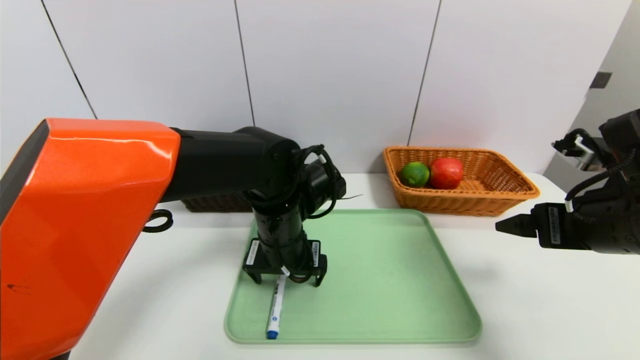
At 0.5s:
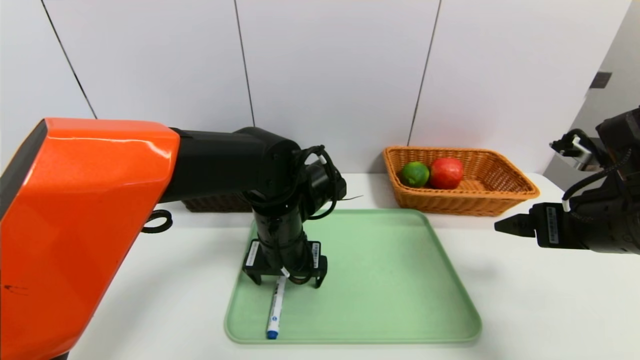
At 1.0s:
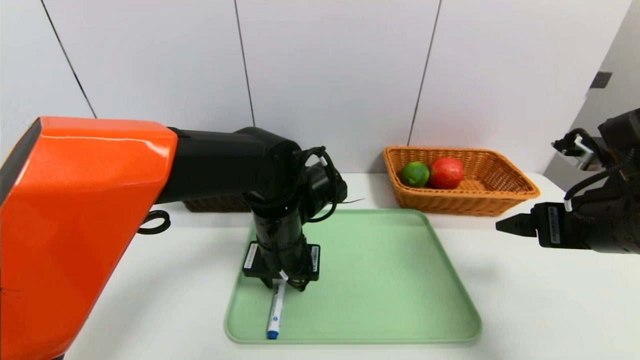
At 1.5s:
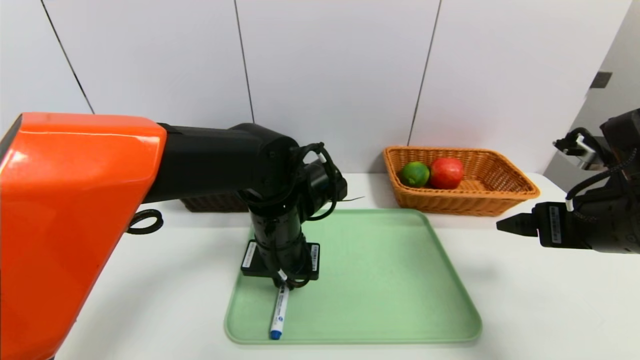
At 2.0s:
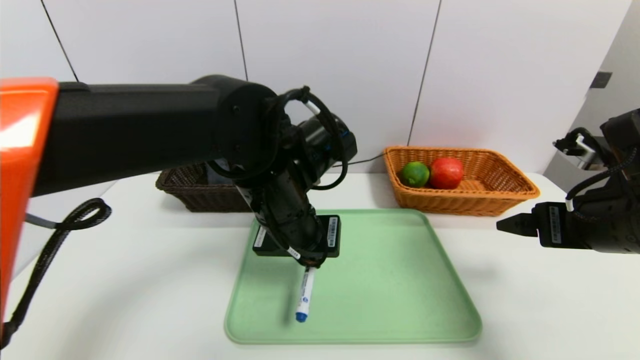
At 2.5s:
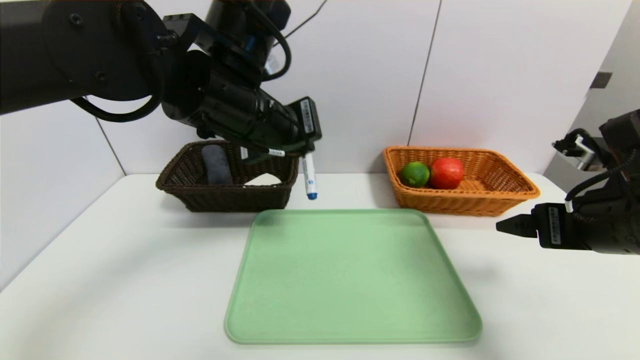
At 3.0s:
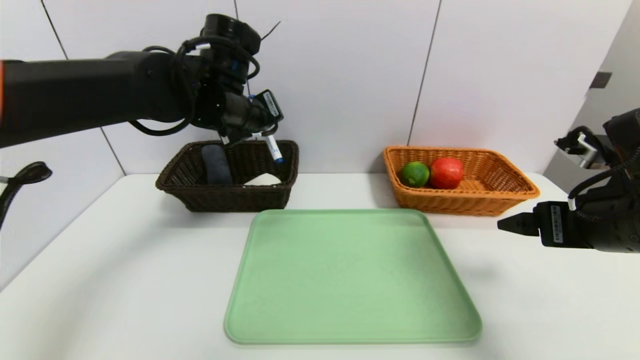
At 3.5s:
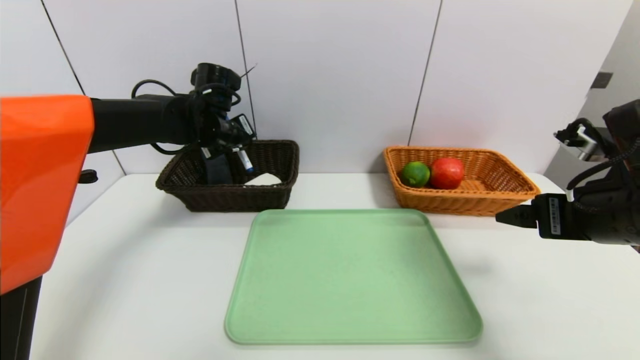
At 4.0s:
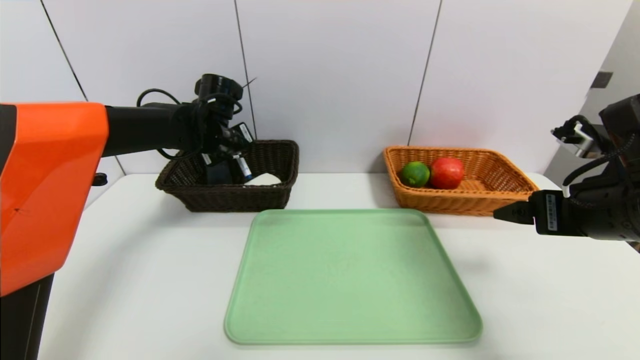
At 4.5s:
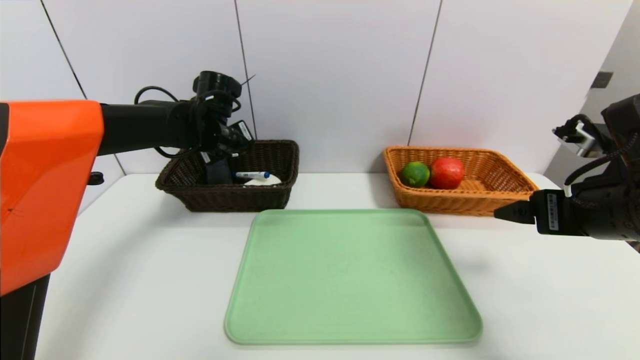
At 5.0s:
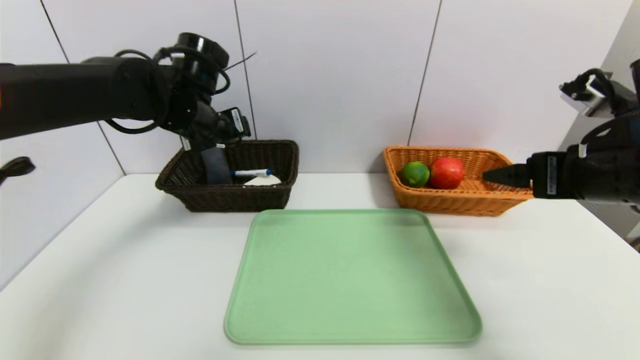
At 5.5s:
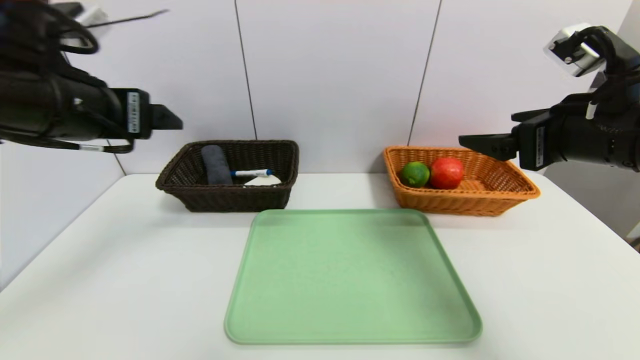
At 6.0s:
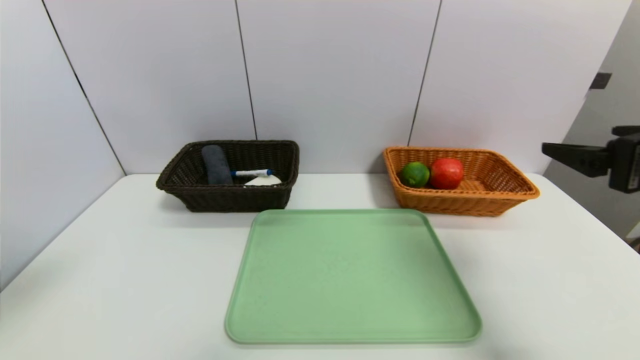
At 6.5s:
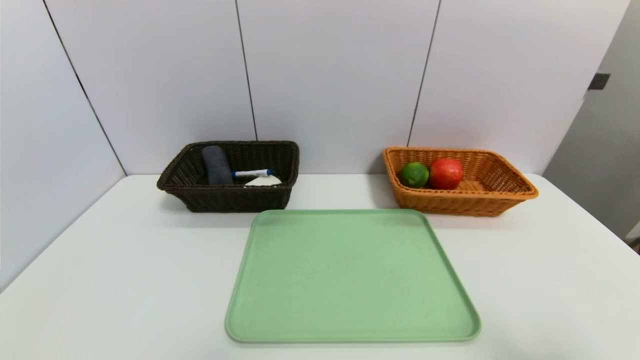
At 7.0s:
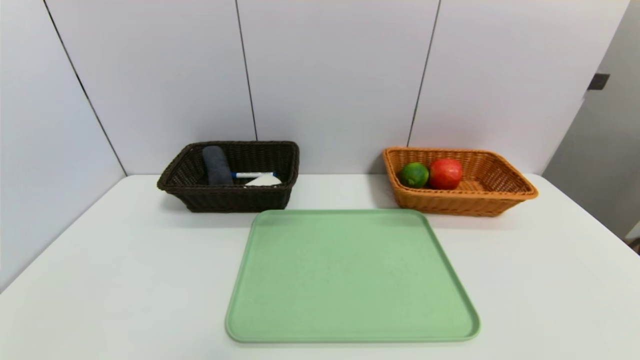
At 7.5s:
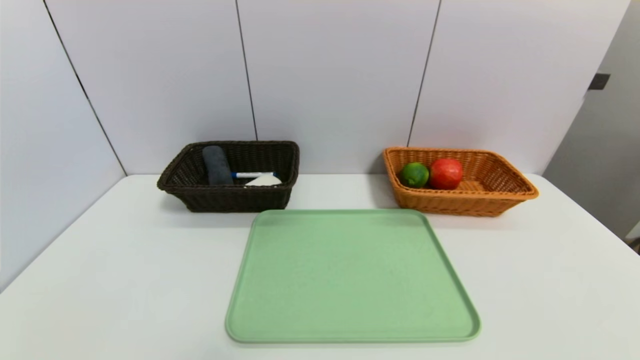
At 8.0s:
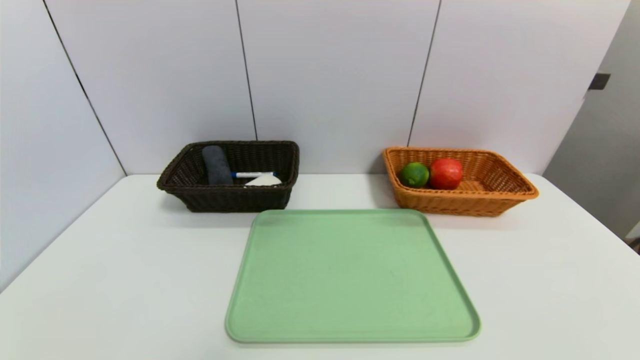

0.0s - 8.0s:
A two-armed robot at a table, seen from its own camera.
Task of the whole recording: place the food in the right basket with the right gripper, and place the non food items in the left basket with the left gripper.
Step, 0.0s - 4.5s: Grasp the blue marker and put it in the left basket.
0.0s - 2.0s: The left gripper moves upward, some 5 cm, and closes its fingers.
2.0s - 4.0s: The left gripper heads forward and to the left, covering about 25 cm.
4.0s - 6.0s: The left gripper moves backward, about 35 cm, and opens its fingers, while the right gripper travels upward by roughly 5 cm.
6.0s - 8.0s: Both grippers move downward and backward, roughly 30 cm.

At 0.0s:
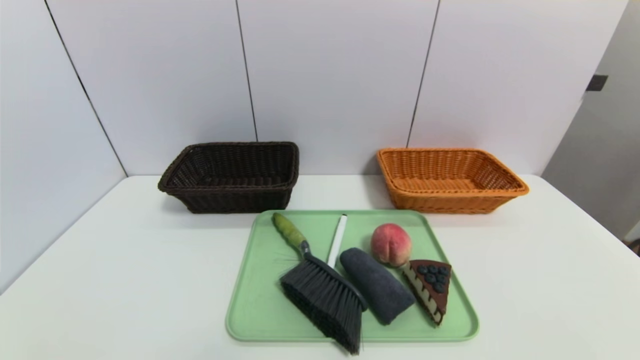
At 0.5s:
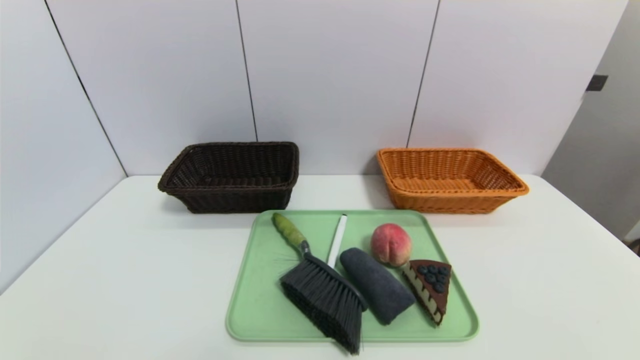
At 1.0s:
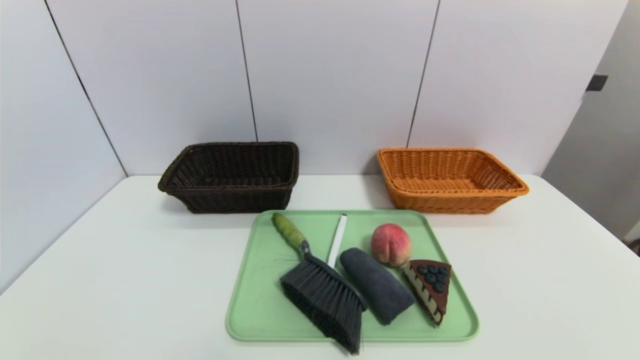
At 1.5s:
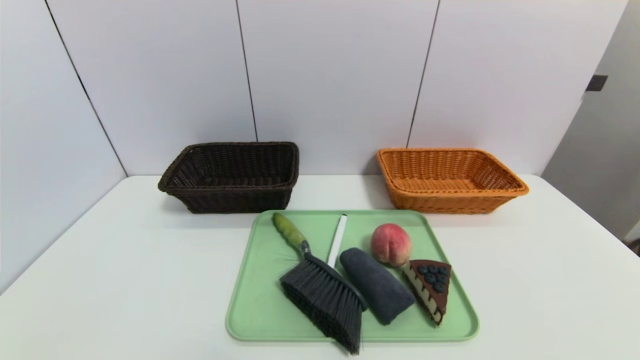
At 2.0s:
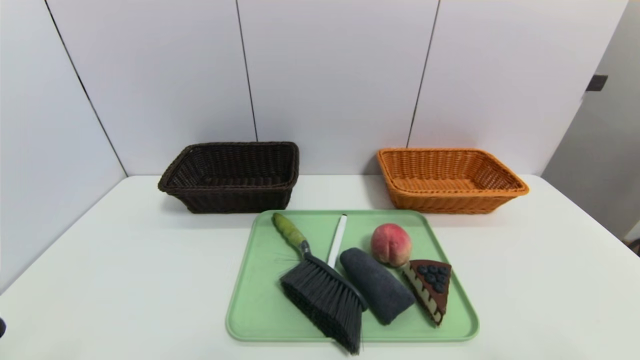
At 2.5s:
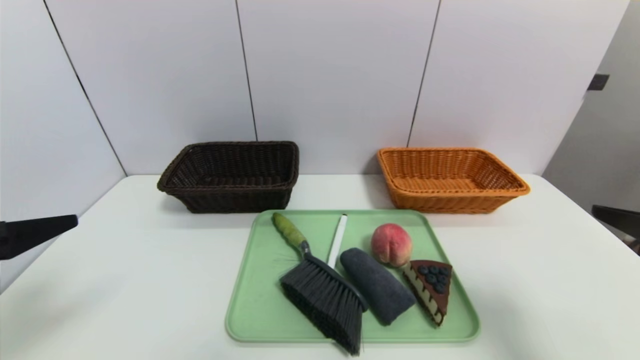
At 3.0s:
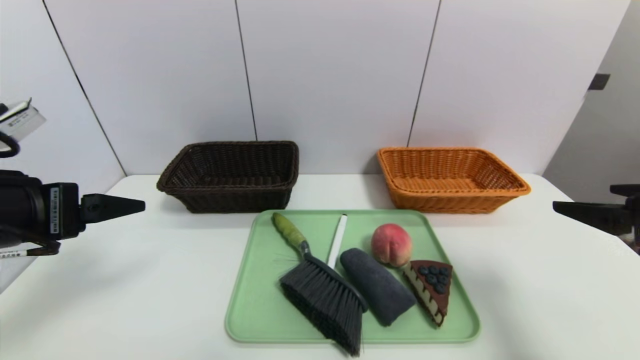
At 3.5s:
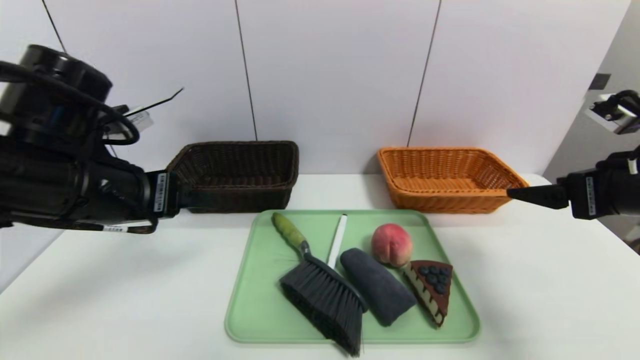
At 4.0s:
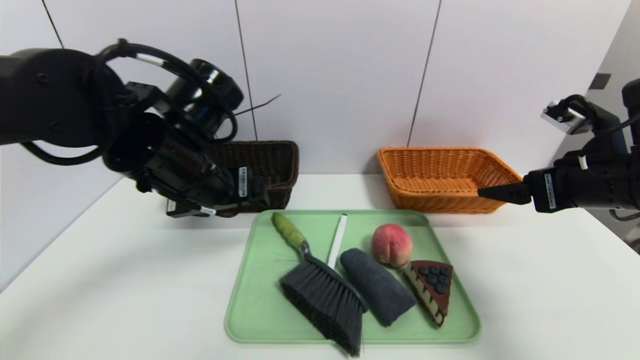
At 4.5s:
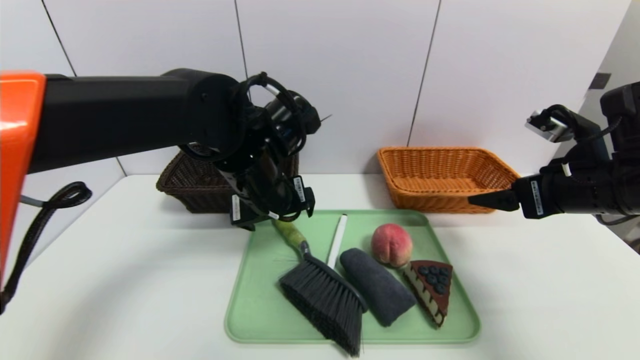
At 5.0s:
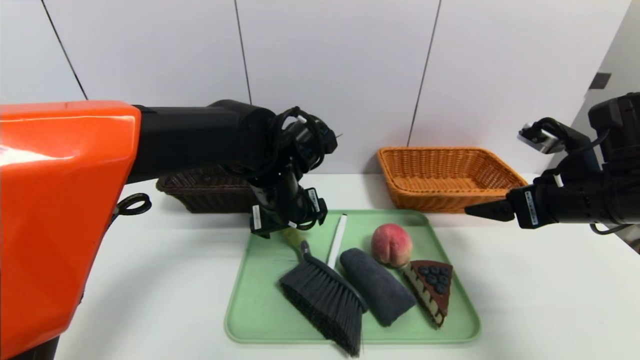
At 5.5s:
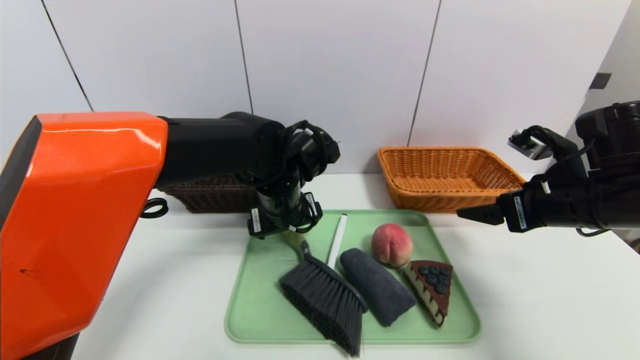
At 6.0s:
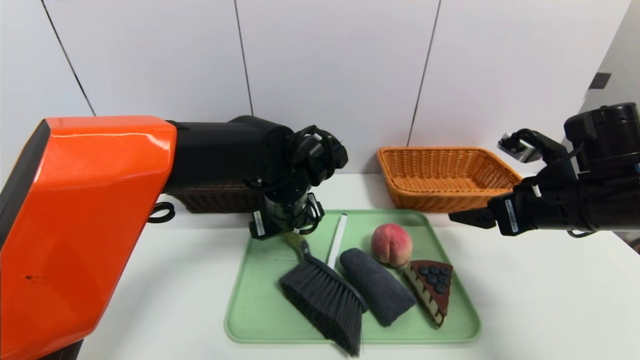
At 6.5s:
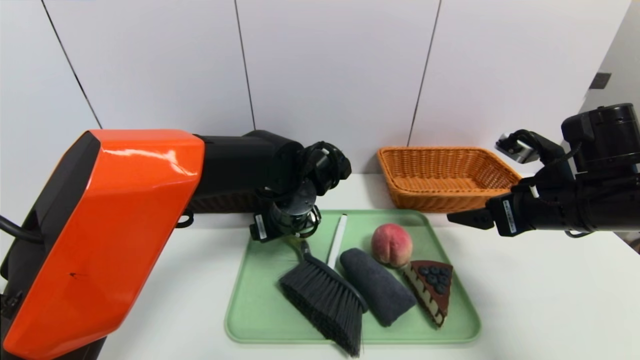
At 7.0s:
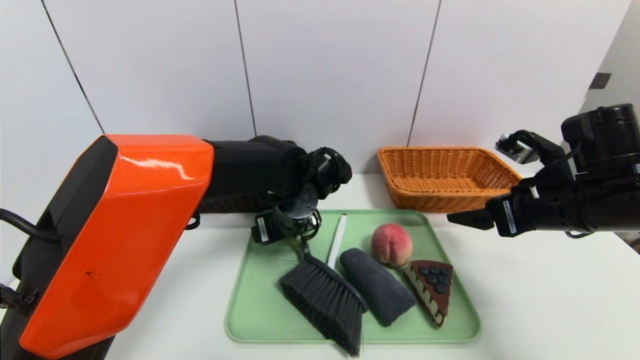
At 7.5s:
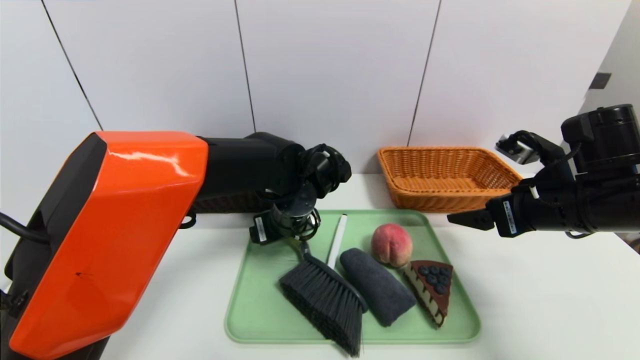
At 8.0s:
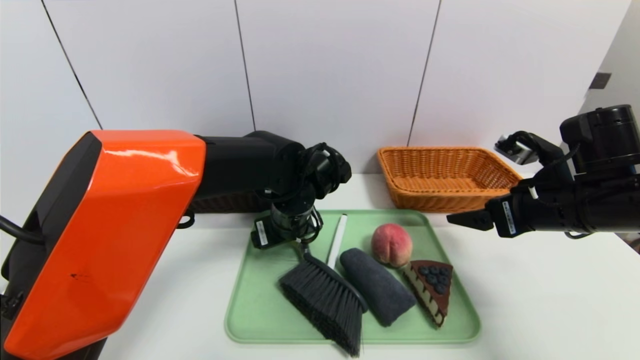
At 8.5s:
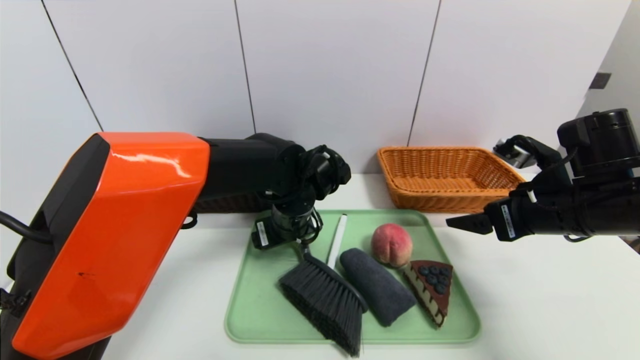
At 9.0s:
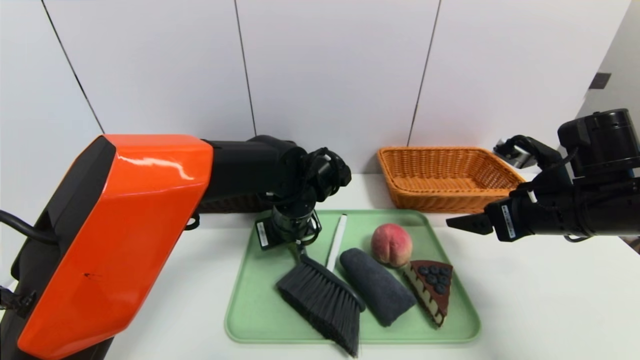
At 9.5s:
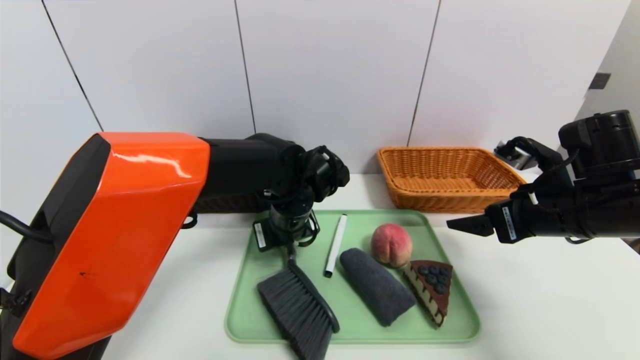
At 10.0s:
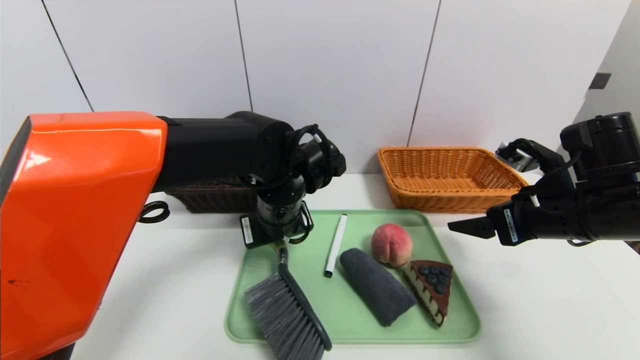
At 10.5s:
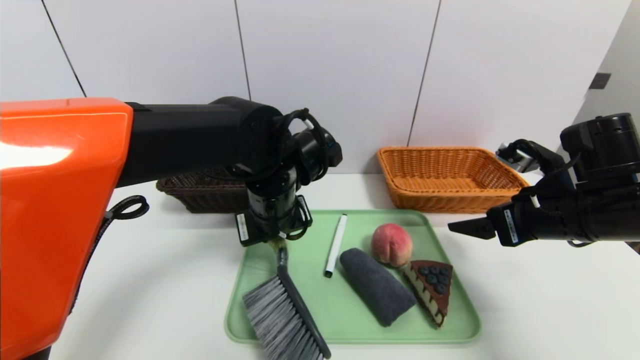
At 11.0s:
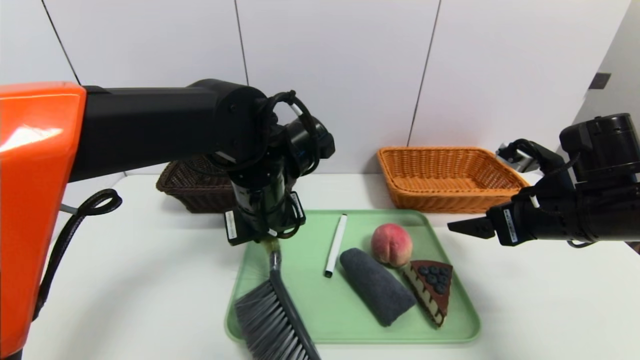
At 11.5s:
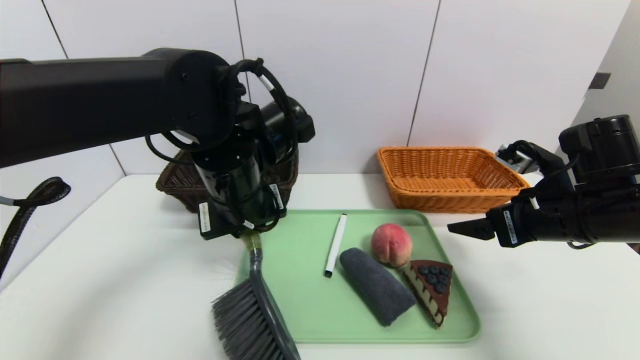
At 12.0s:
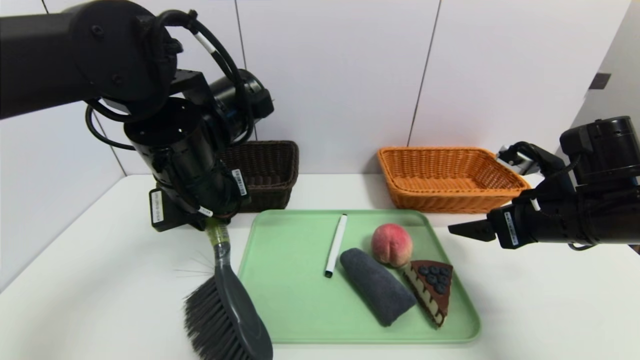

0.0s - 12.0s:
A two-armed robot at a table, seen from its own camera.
Task of the whole recording: place the food in the right basket with the right gripper, and place the non food items in the left basket with the left gripper.
2.0s - 4.0s: The left gripper shifts some 30 cm forward and to the right; the right gripper goes approximately 25 cm forward.
4.0s - 6.0s: The left gripper is displaced to the right, downward and forward by about 15 cm.
6.0s - 8.0s: The grippers stay close to where they were, moving slightly.
8.0s - 10.0s: The left gripper closes up.
10.0s - 12.0s: The left gripper travels upward and to the left by some 10 cm.
